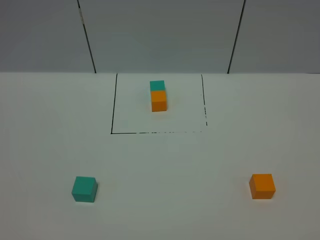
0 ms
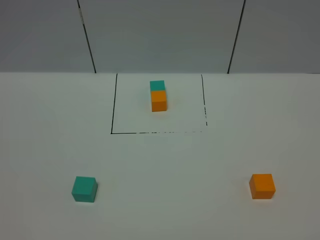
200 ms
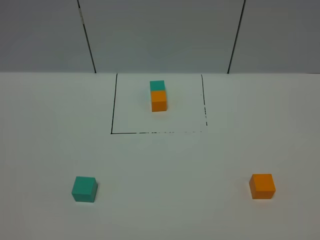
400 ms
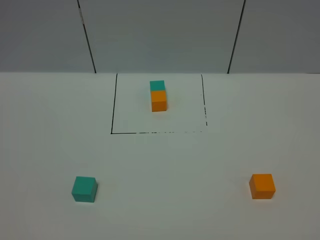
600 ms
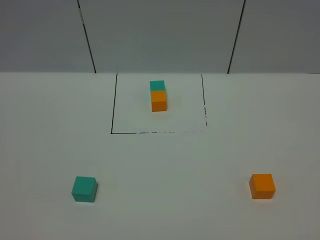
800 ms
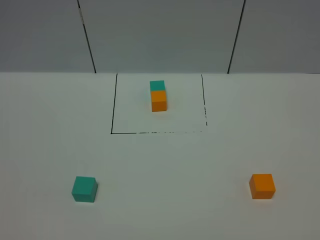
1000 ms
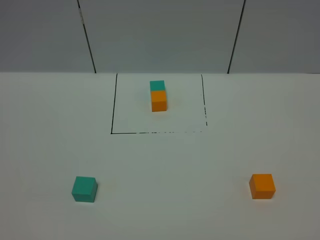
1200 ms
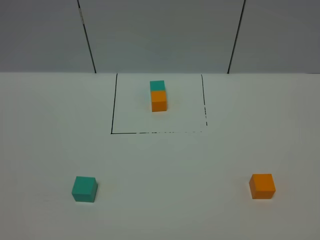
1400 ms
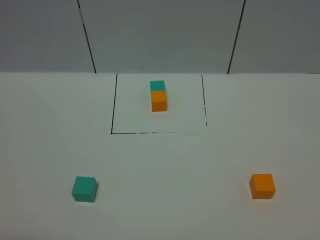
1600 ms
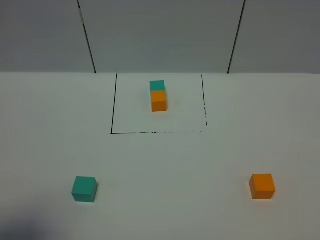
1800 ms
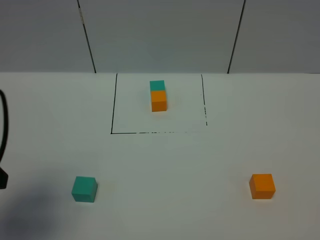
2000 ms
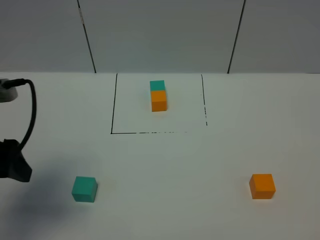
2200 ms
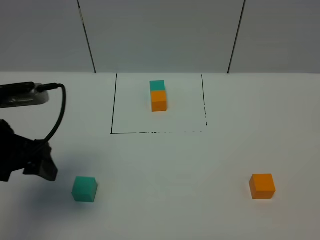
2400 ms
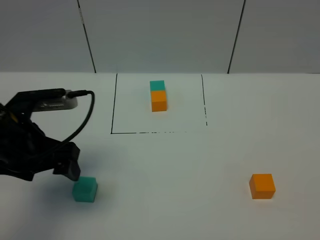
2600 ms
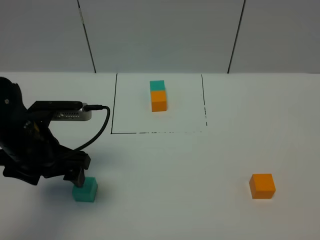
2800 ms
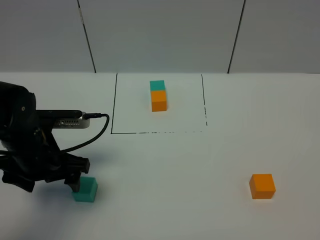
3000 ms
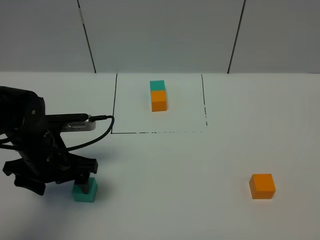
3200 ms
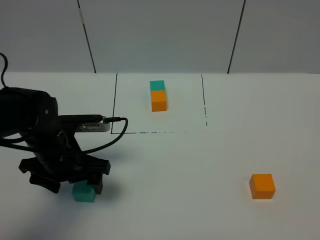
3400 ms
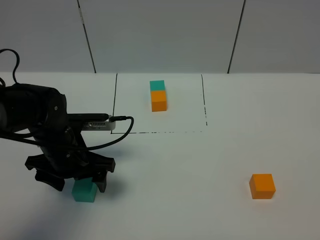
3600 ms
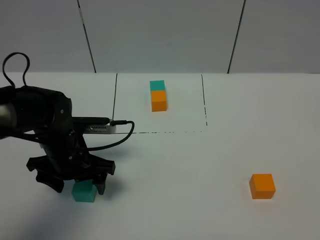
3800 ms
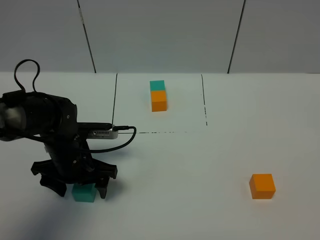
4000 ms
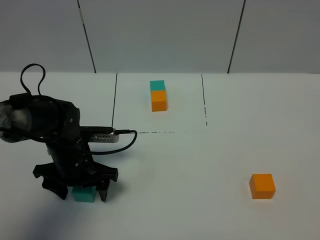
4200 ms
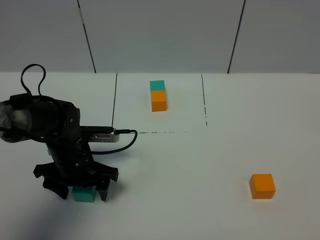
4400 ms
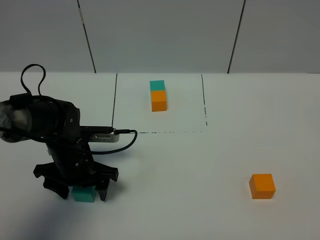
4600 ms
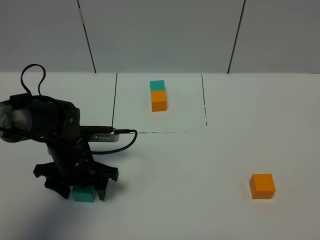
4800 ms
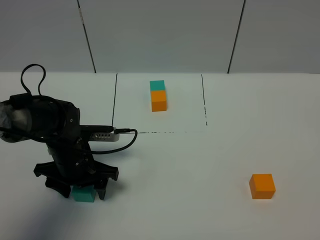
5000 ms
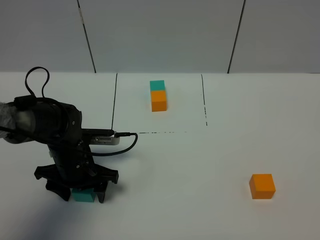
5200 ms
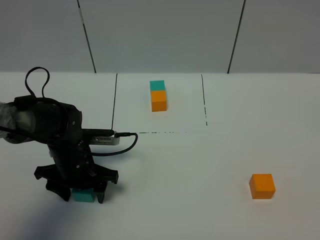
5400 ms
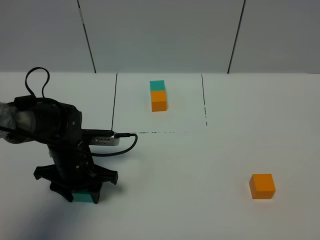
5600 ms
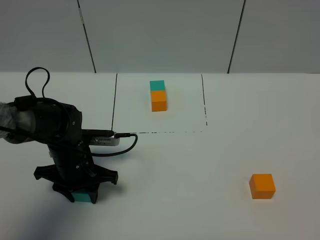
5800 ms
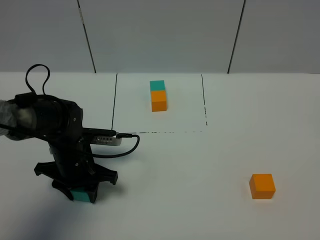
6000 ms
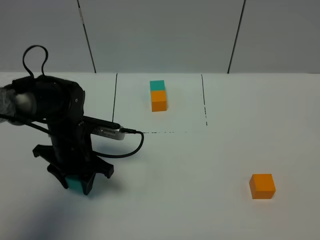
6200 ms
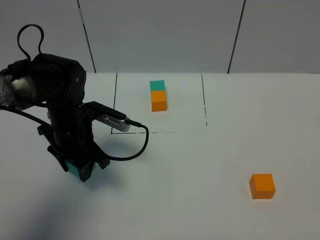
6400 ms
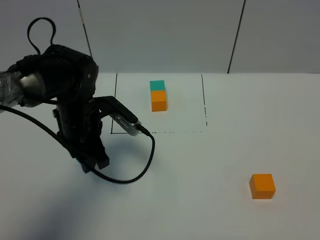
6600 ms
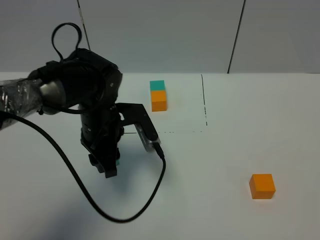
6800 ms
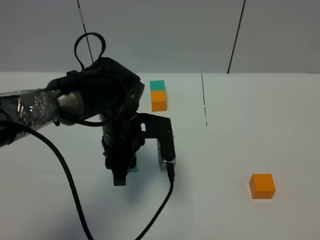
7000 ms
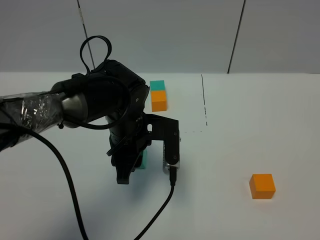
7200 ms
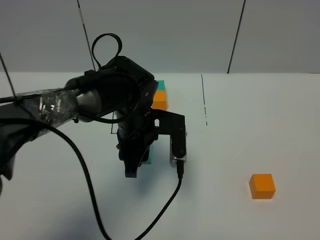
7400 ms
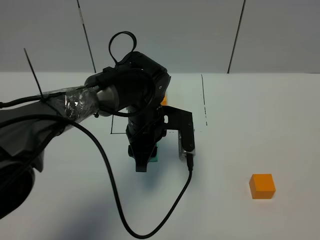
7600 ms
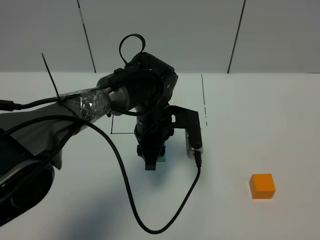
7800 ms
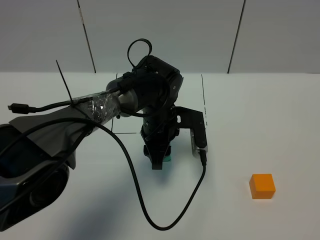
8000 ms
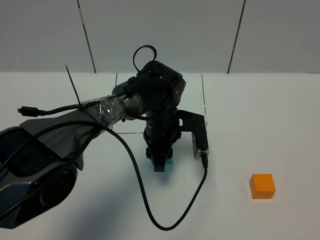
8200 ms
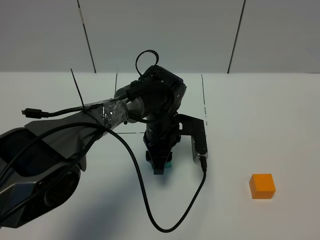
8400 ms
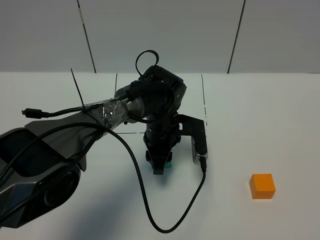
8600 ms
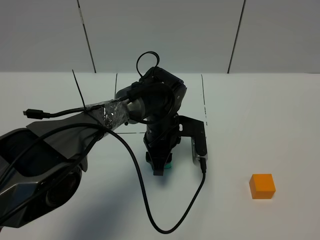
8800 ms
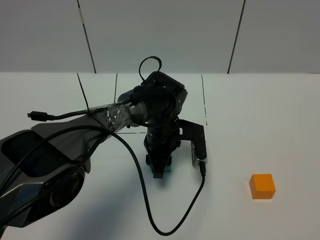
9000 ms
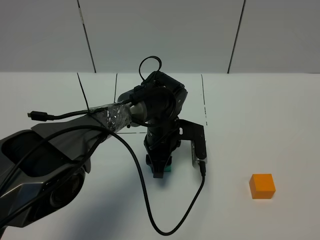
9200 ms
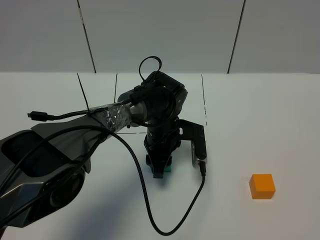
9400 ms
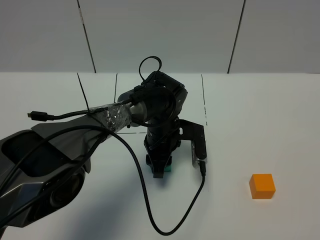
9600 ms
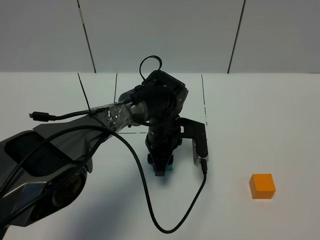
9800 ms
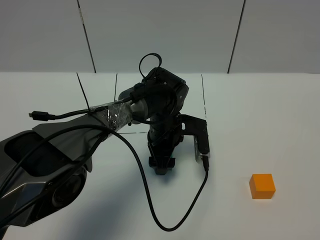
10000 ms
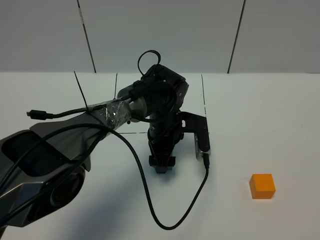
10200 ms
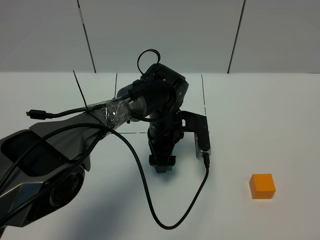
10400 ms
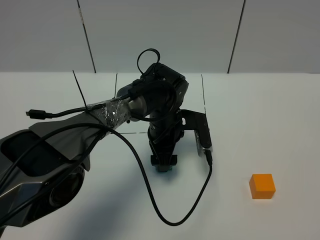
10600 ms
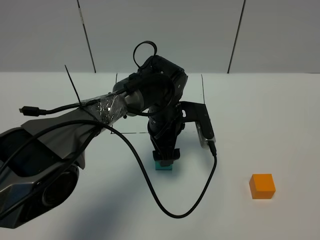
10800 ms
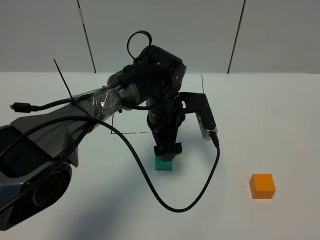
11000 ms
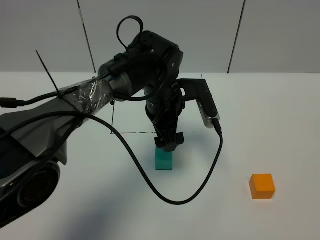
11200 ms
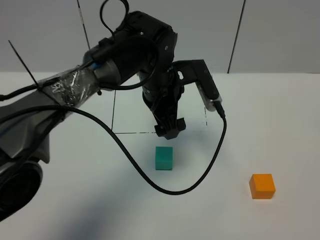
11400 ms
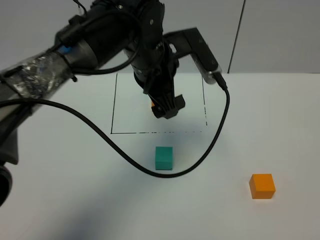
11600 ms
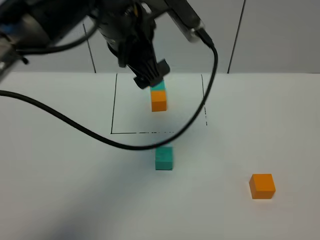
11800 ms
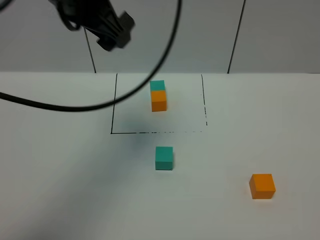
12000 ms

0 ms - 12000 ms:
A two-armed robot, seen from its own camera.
Task of the whole recording: According to the building block template in front, assemble the scattered blocks together.
Step, 2000 ms - 10800 ms: Put the green cube in the center of the table.
1600 ms - 3000 ms: The left gripper travels forward and downward by approximately 25 cm.
3000 ms - 4400 ms: The left gripper is displaced downward by approximately 5 cm.
4400 ms - 6000 ms: The left gripper closes its fingers.
6000 ms - 7600 ms: The left gripper is displaced to the right and upward by approximately 15 cm.
7600 ms - 9000 ms: The left gripper is displaced downward by approximately 5 cm.
9000 ms - 10400 ms: The left gripper opens up.
10400 ms - 12000 ms: The left gripper goes about 35 cm upward and to the left.

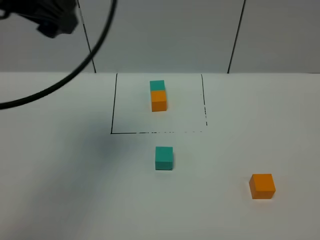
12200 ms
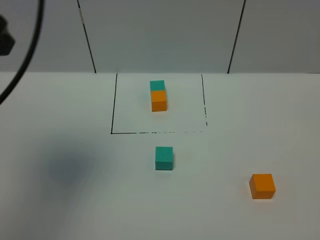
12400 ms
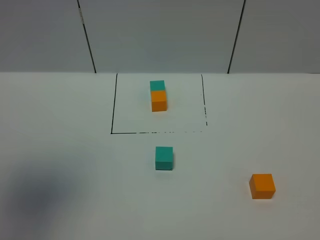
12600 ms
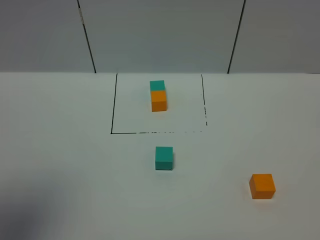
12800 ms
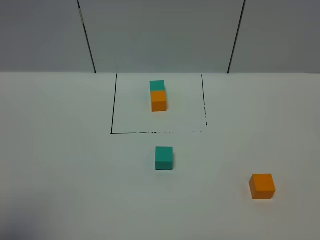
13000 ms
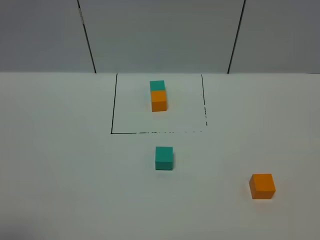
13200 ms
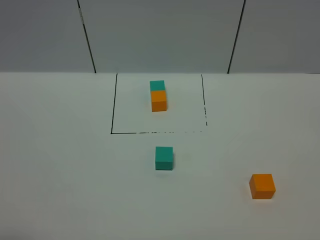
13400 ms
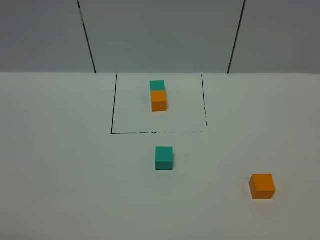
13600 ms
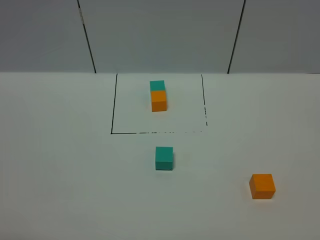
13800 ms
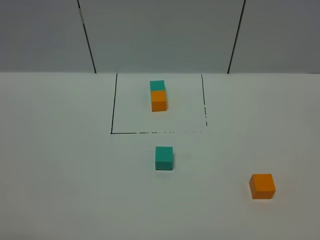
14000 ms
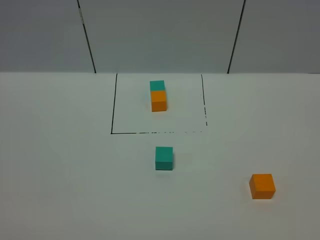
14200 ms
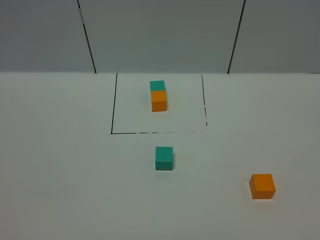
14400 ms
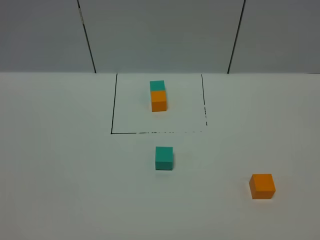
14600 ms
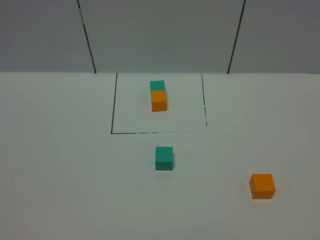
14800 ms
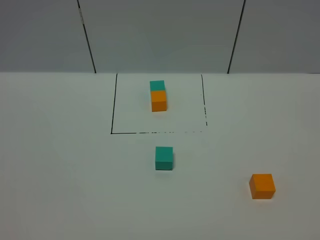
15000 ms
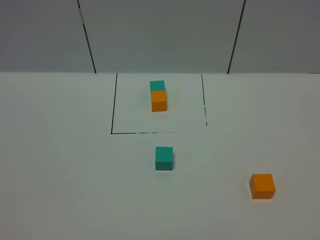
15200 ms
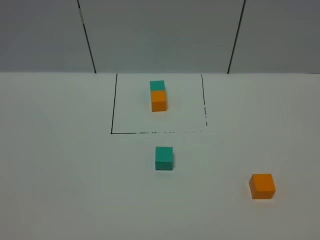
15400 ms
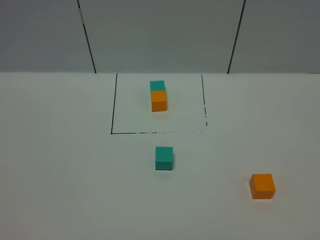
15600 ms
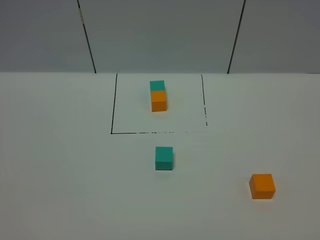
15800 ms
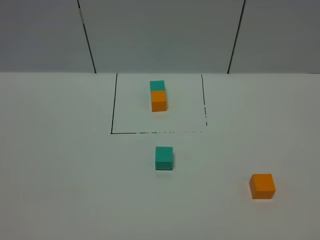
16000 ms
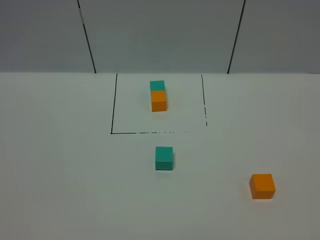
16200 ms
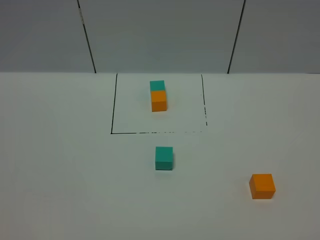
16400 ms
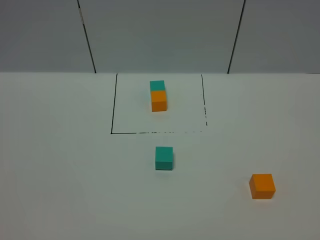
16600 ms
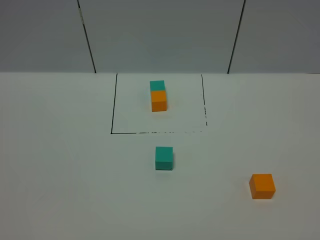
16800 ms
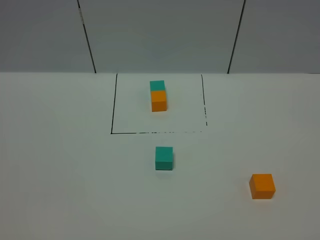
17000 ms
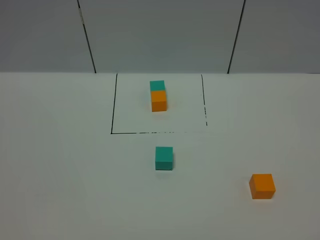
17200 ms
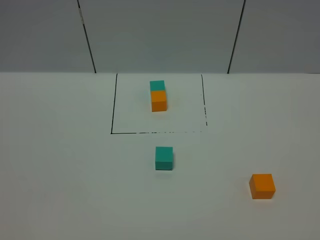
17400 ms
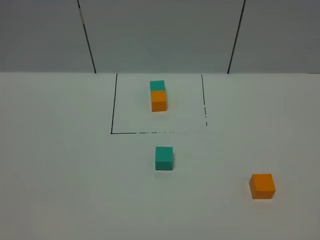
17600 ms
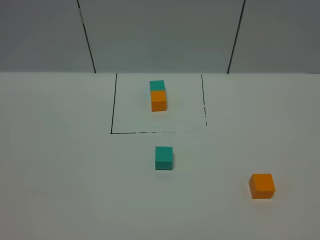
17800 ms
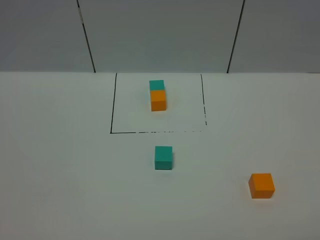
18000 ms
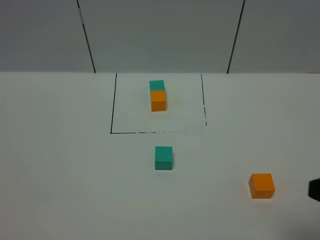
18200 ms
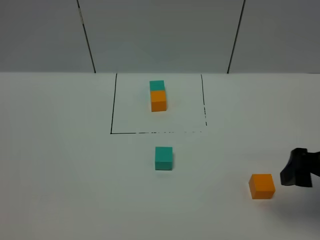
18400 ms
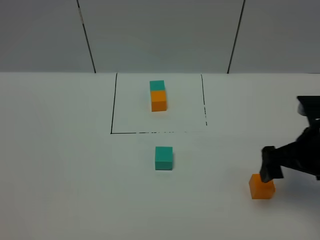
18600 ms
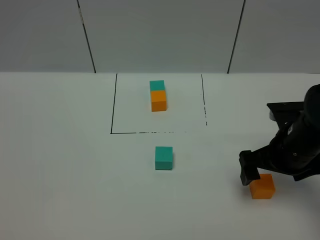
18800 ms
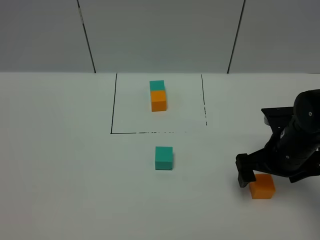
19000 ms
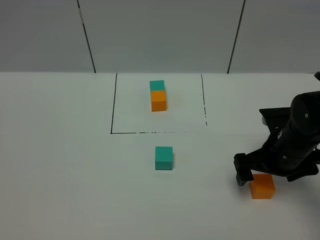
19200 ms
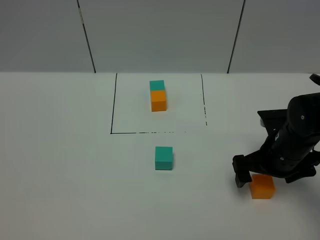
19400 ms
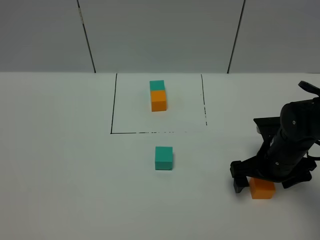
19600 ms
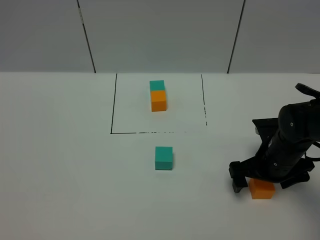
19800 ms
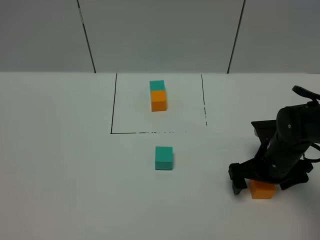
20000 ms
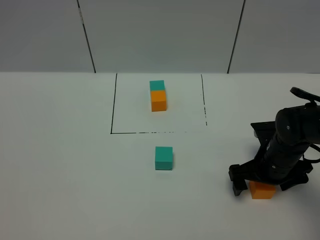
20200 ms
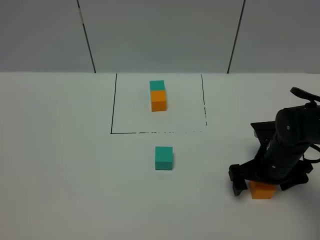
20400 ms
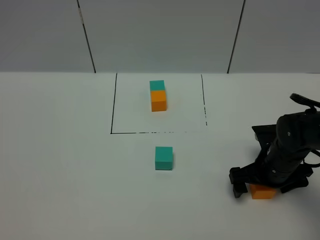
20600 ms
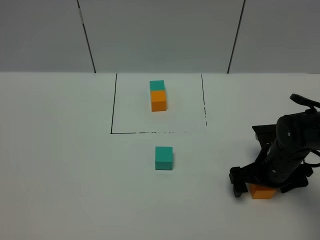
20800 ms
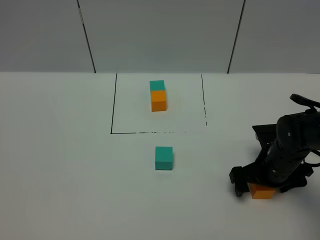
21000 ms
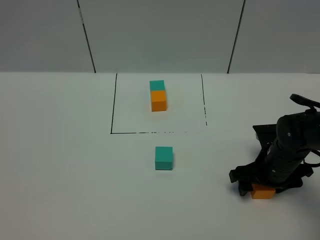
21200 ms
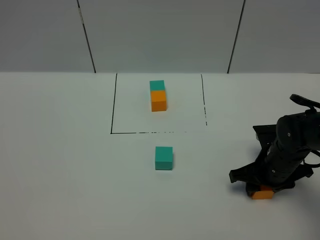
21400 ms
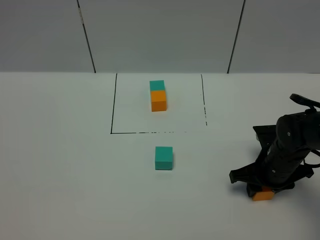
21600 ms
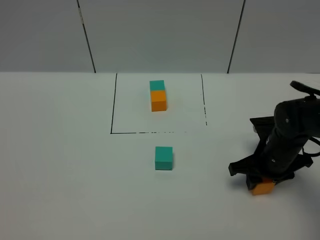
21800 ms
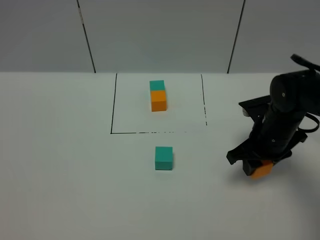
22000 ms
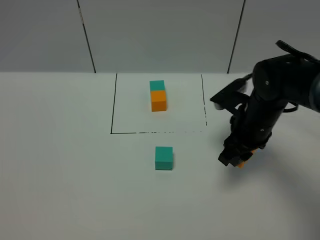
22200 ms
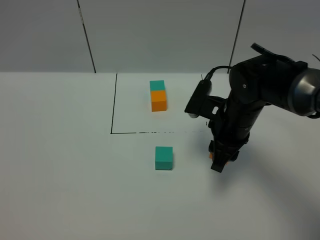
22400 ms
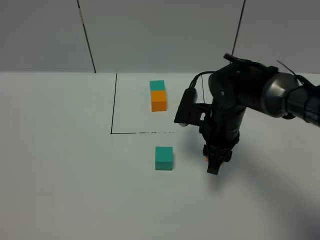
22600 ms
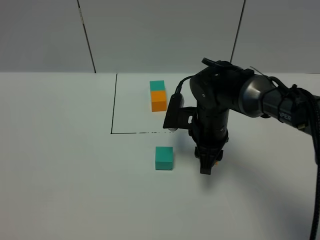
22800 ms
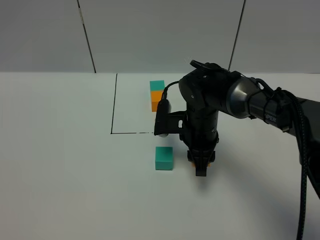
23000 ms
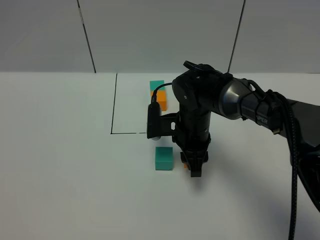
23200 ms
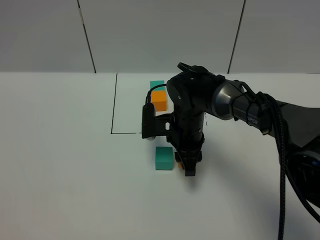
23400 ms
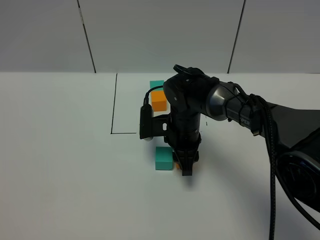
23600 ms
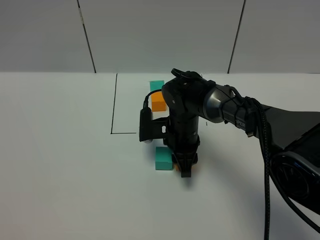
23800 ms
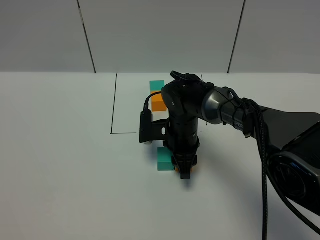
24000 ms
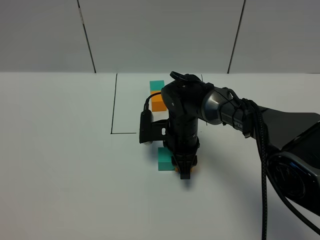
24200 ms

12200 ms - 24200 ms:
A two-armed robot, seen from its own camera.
Task of the whole recording: According to the building block template in front, assemble the scattered blocks together.
12200 ms - 13800 ms: The left gripper moves backward and to the left, about 30 cm.
15200 ms - 16600 ms: Both grippers stay put.
16600 ms - 18200 ms: The right gripper goes approximately 15 cm forward.
18200 ms - 19800 ms: The right gripper is displaced downward and forward by about 25 cm.
19800 ms - 21200 ms: The right gripper closes.
21200 ms - 22600 ms: The right gripper goes roughly 15 cm to the left, upward and forward, and closes up.
22600 ms - 24200 ms: The right gripper goes about 10 cm to the left and downward.
